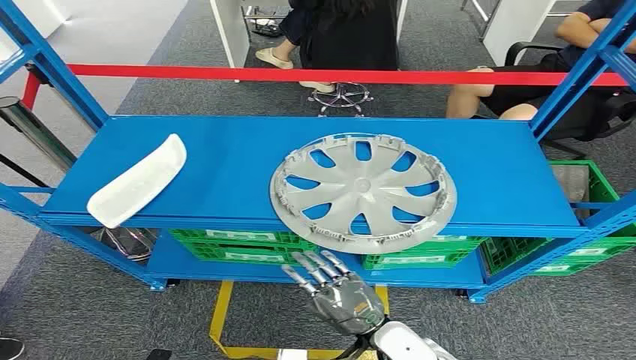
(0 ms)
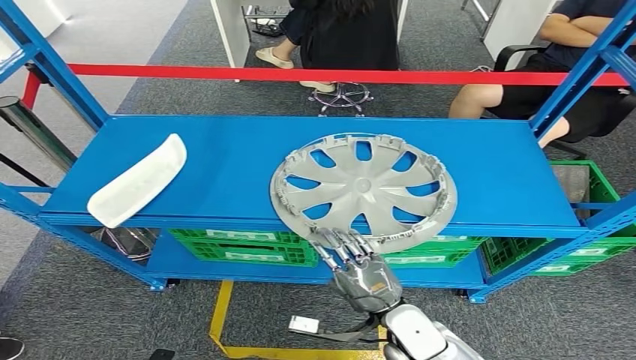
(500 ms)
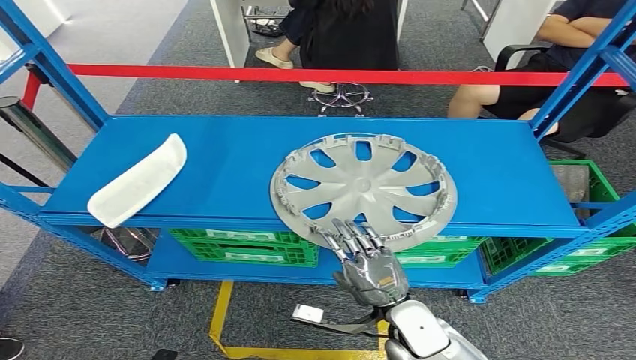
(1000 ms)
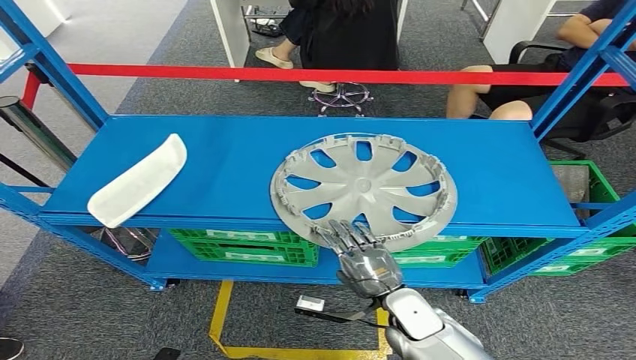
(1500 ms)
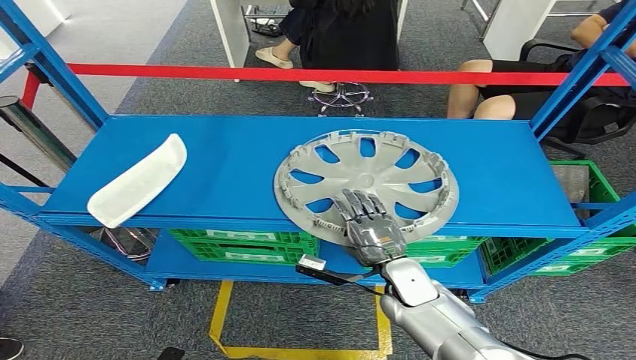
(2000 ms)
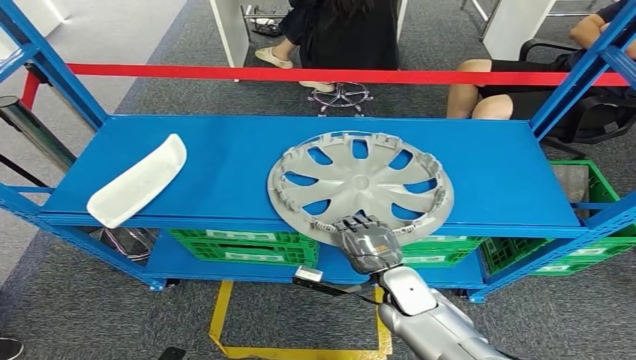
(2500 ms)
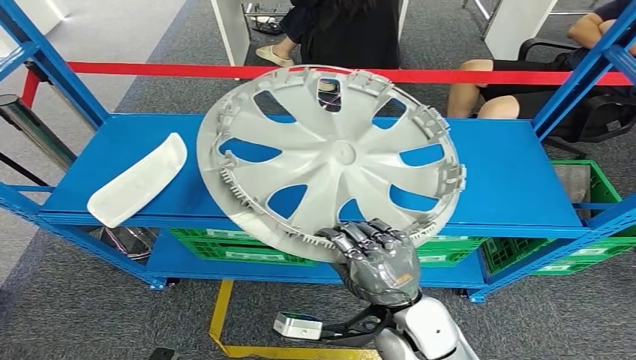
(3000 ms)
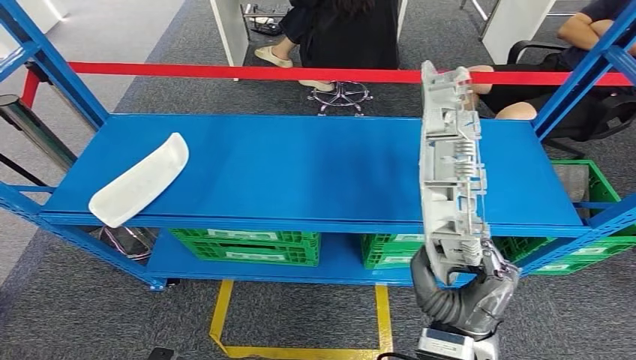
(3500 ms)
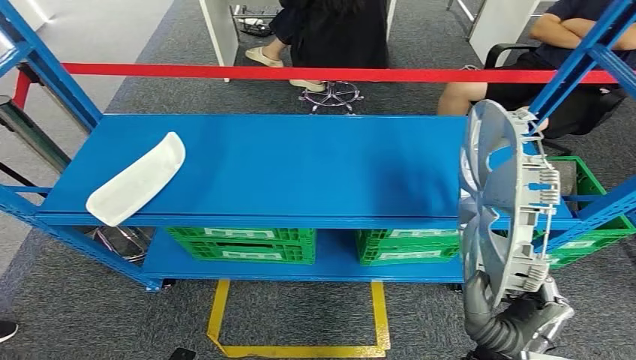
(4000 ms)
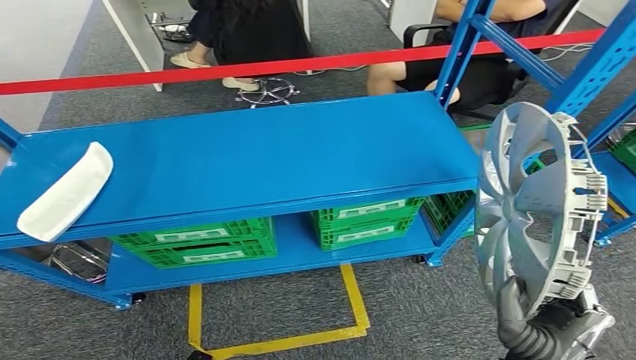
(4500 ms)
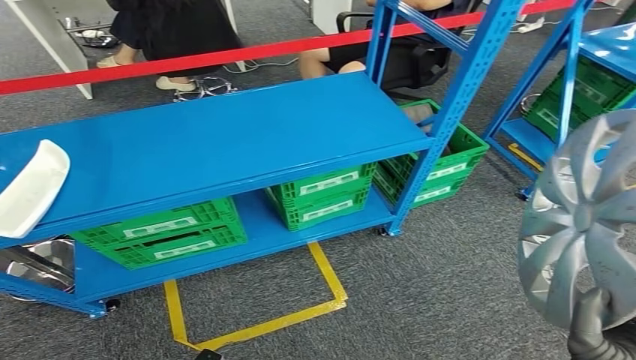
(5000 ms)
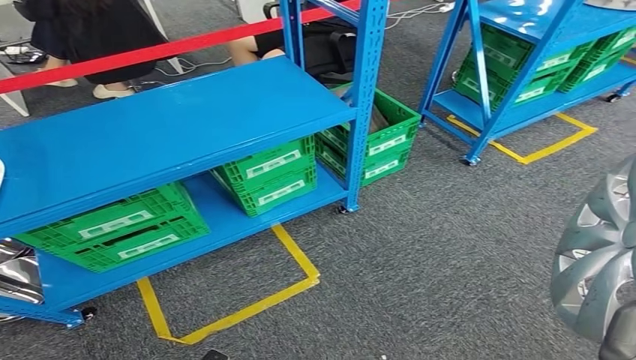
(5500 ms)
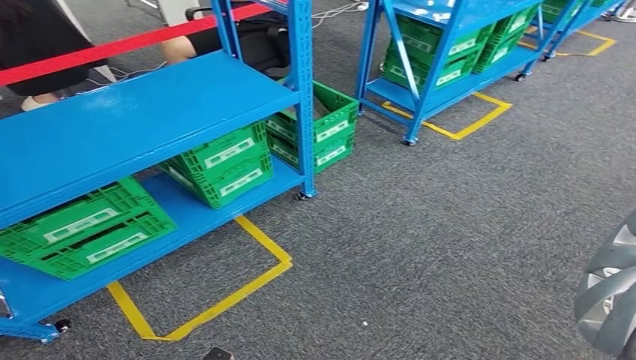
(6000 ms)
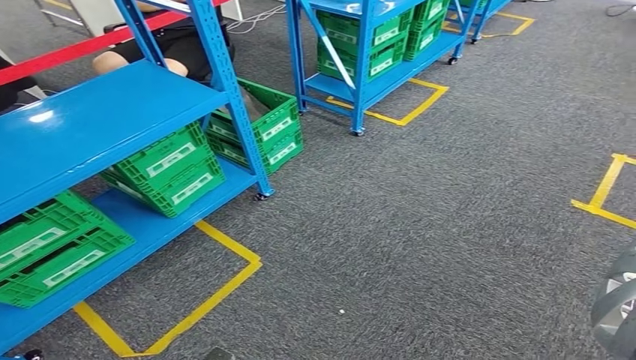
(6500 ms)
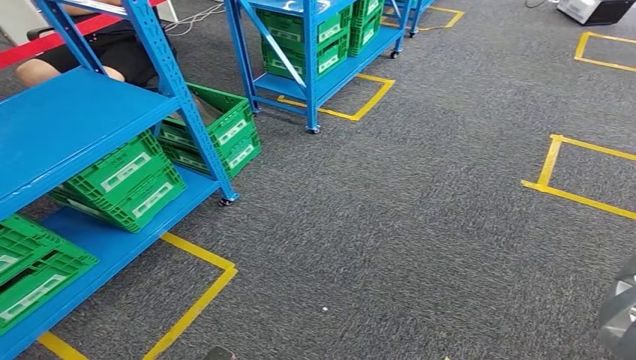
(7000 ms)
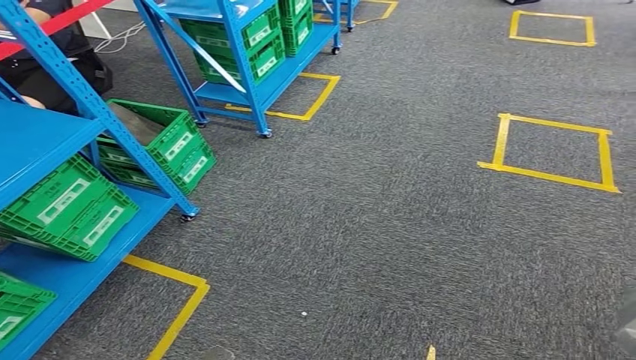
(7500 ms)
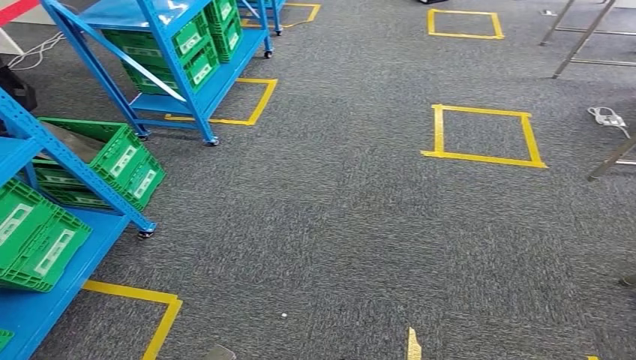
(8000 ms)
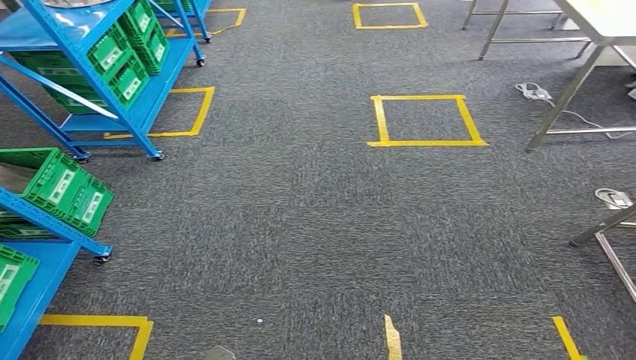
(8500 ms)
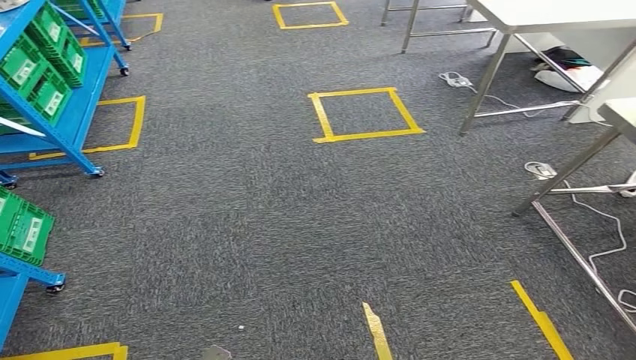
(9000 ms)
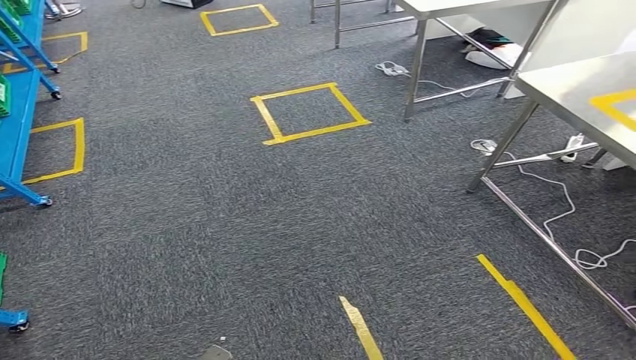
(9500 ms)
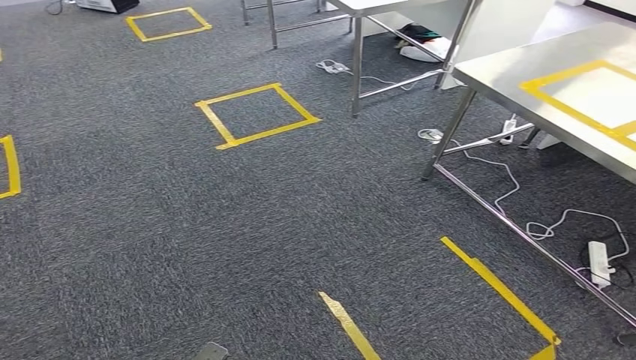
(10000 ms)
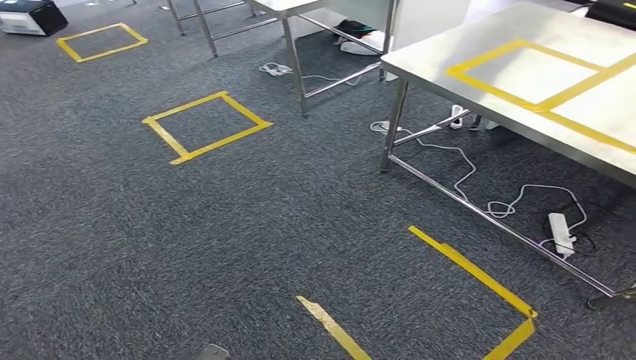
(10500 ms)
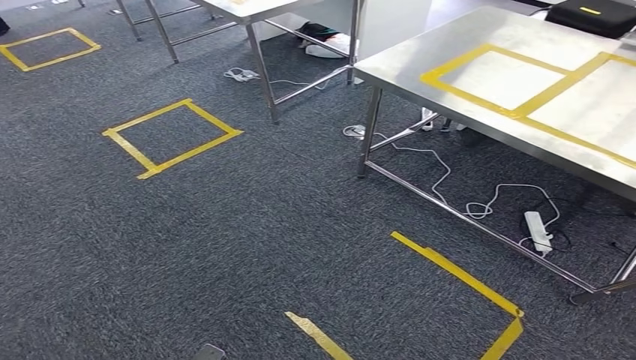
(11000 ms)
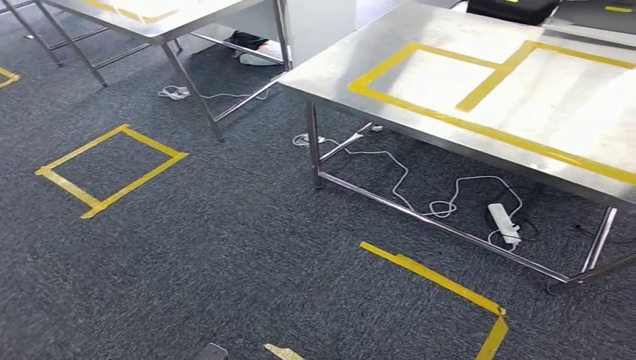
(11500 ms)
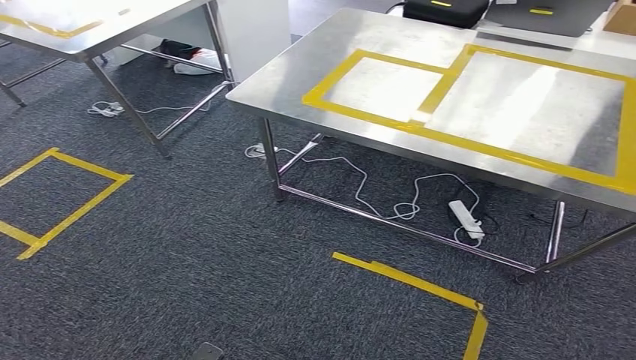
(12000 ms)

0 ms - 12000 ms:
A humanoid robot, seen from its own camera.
Step, 0 ms - 4000 ms: Take small components from the rack.

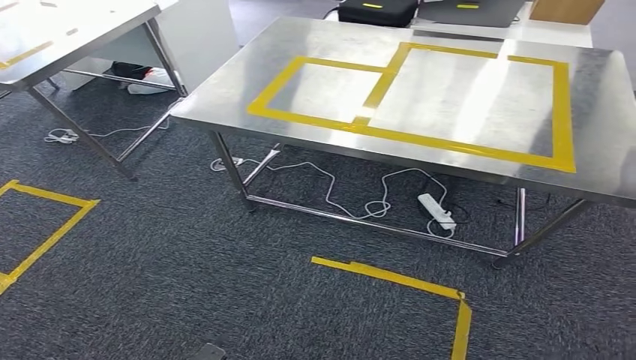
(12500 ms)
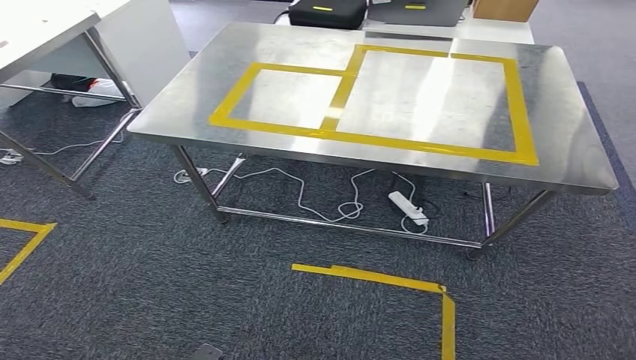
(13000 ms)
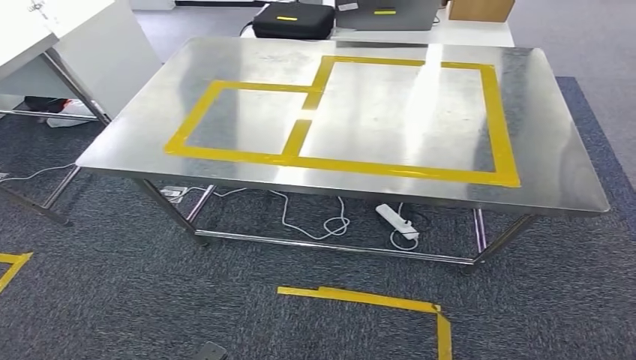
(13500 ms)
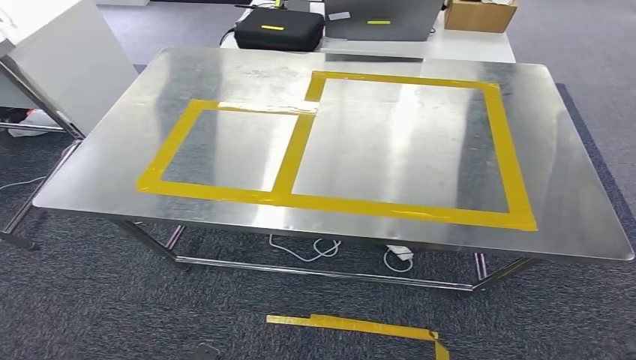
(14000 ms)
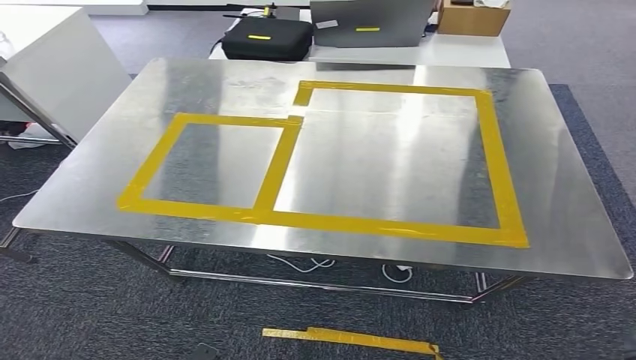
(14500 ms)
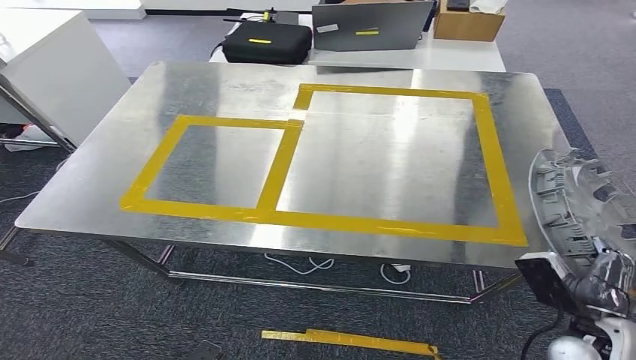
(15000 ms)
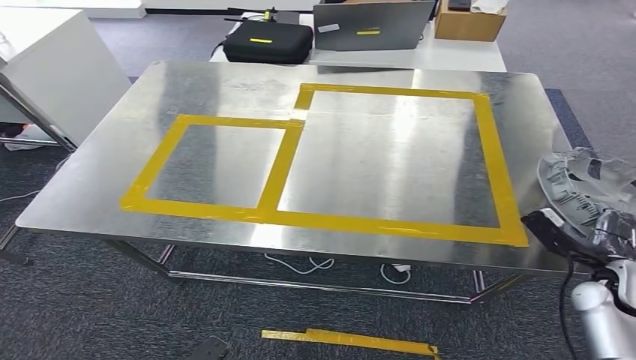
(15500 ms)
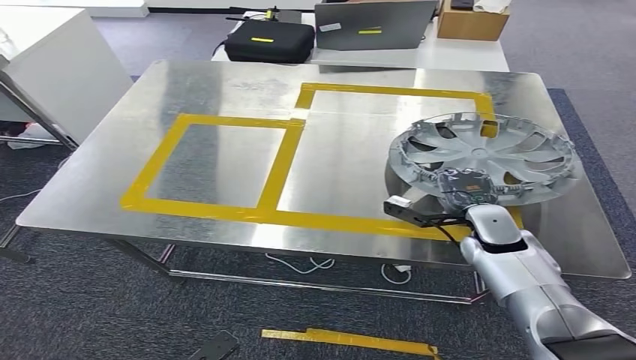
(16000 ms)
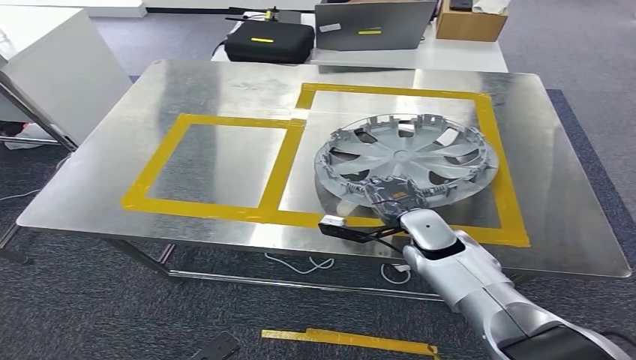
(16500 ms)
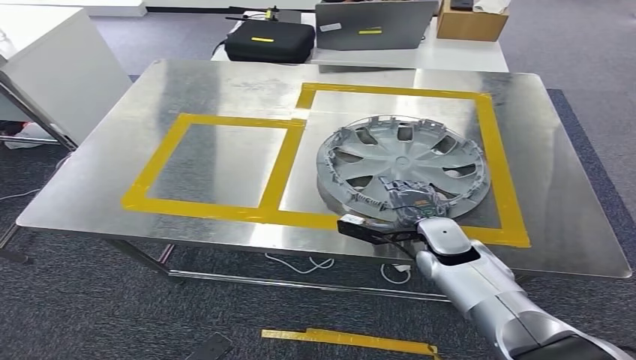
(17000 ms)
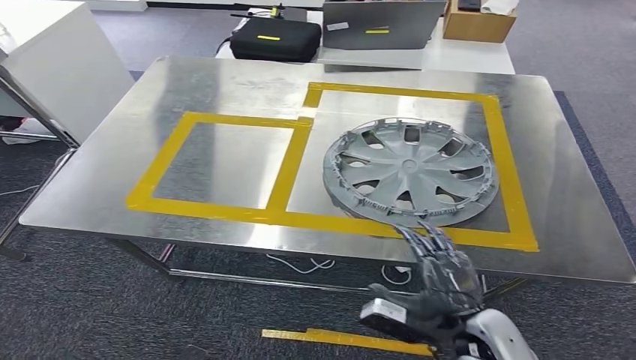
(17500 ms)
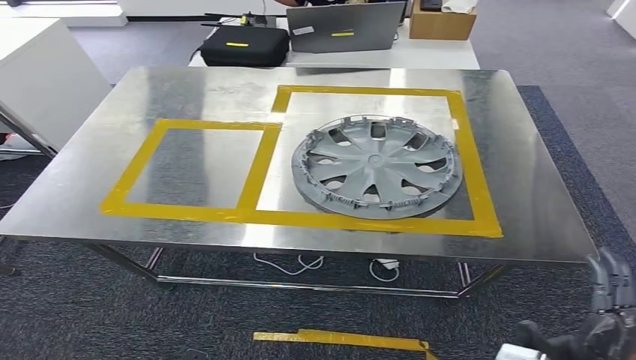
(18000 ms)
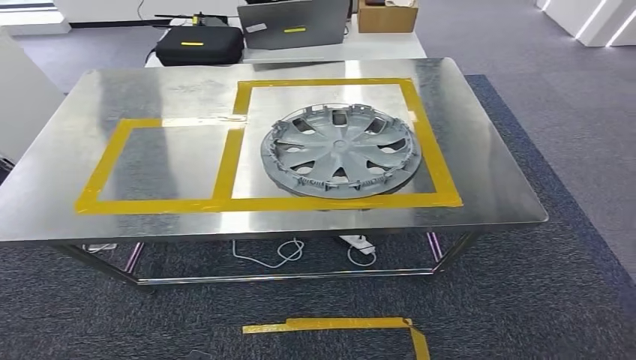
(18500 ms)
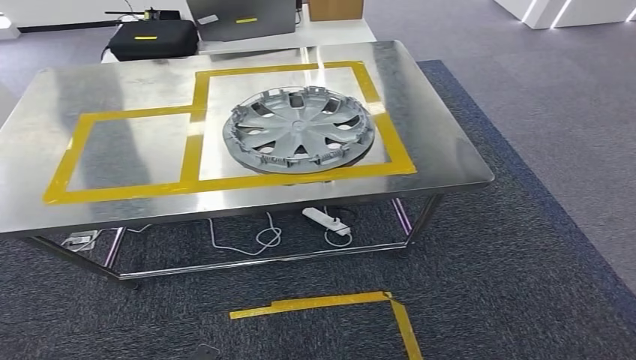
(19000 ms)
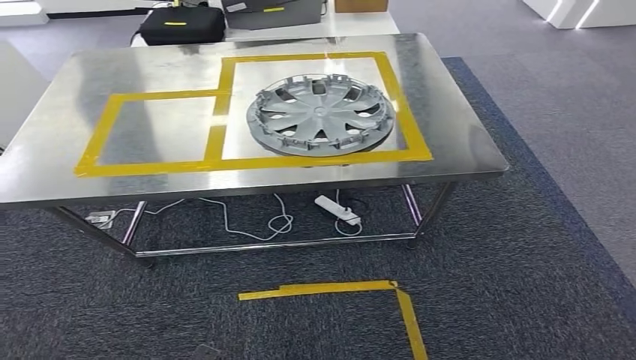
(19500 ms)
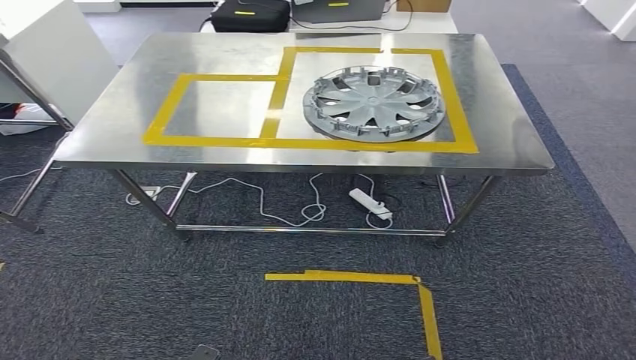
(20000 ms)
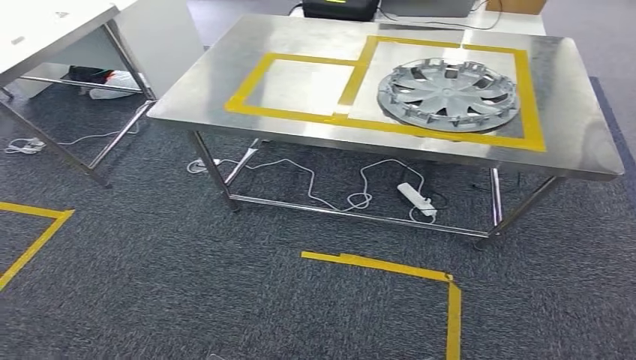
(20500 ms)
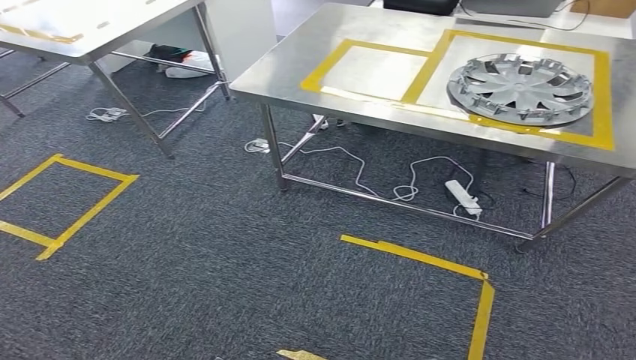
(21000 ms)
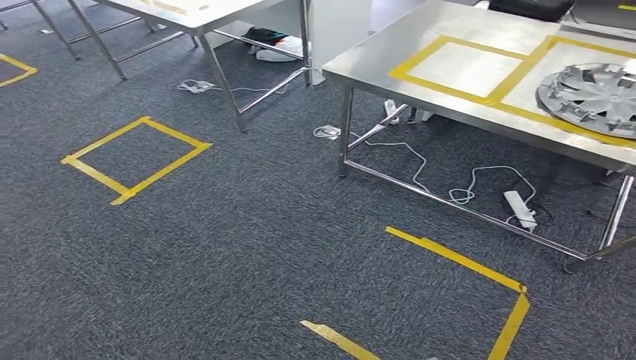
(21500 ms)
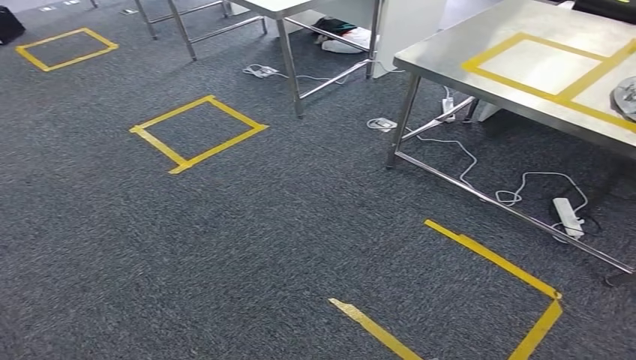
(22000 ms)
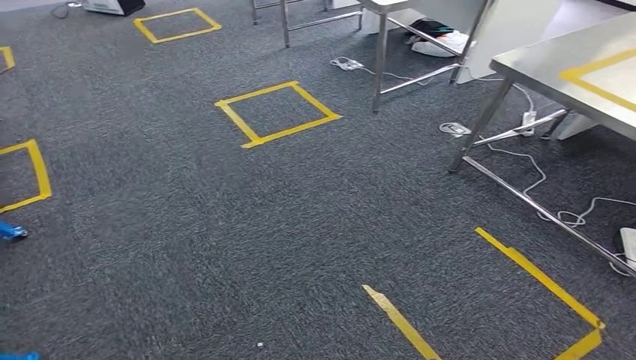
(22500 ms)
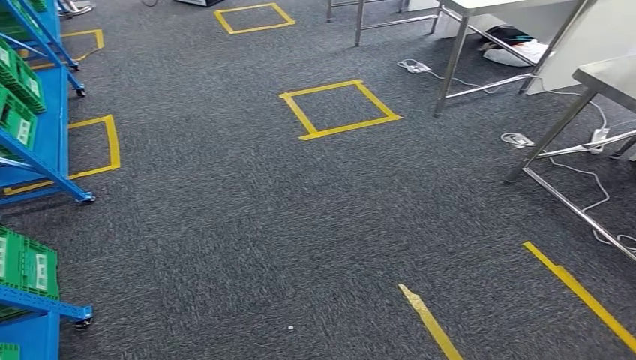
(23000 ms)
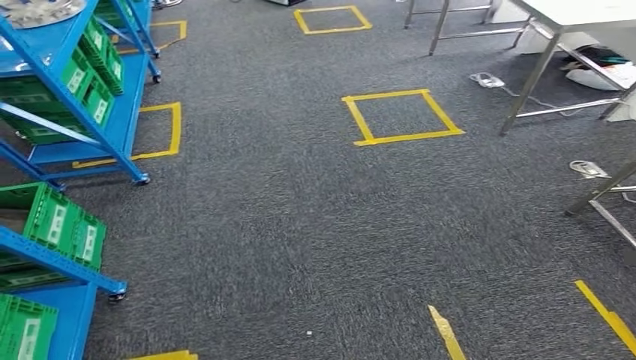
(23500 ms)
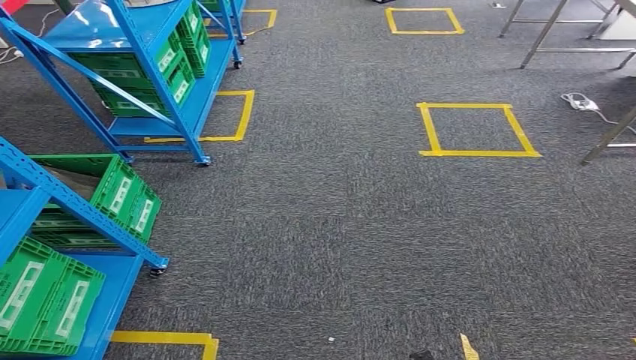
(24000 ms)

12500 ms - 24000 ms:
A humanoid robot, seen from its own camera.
Step, 12500 ms - 15000 ms: Move the small parts to the workbench.
Step, 15500 ms - 17000 ms: Insert the small parts into the corresponding holes on the workbench.
